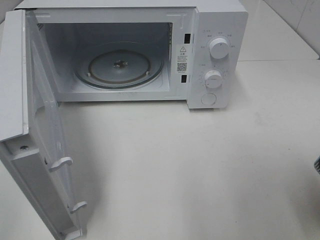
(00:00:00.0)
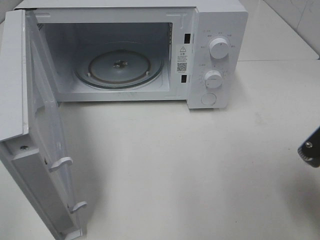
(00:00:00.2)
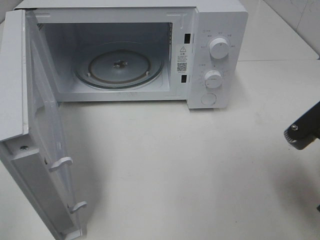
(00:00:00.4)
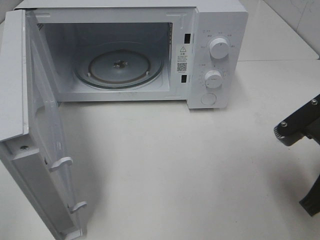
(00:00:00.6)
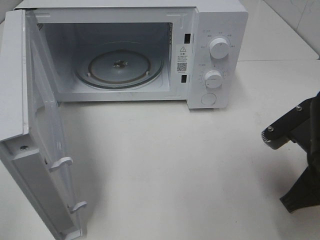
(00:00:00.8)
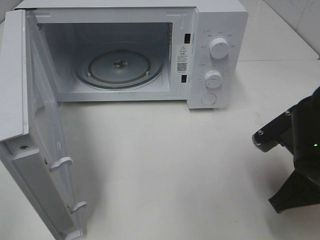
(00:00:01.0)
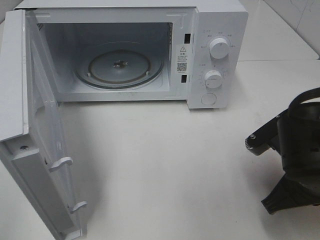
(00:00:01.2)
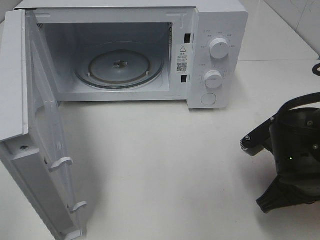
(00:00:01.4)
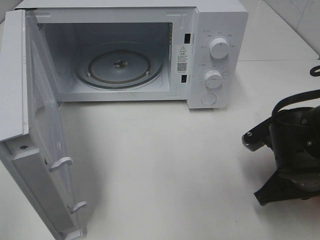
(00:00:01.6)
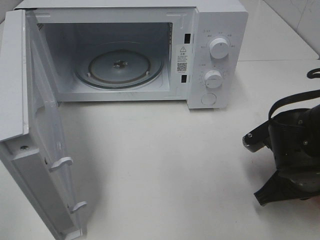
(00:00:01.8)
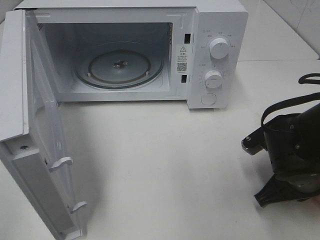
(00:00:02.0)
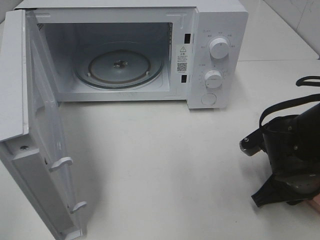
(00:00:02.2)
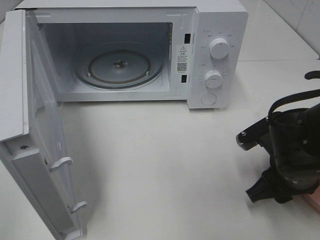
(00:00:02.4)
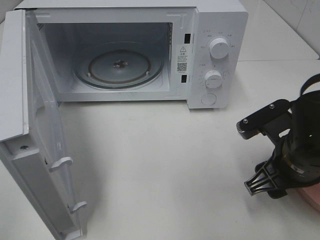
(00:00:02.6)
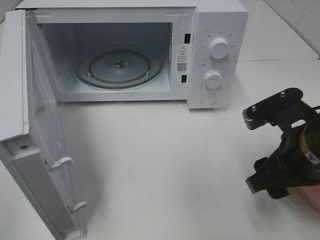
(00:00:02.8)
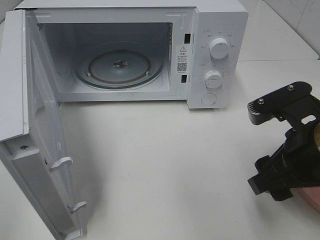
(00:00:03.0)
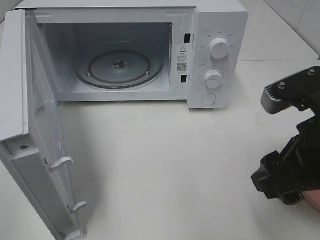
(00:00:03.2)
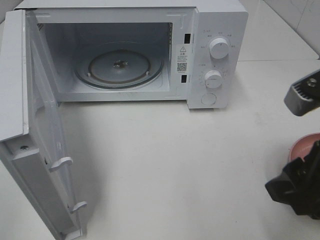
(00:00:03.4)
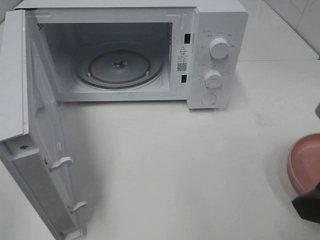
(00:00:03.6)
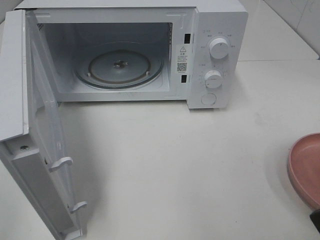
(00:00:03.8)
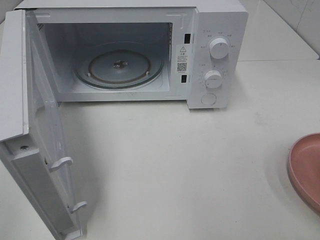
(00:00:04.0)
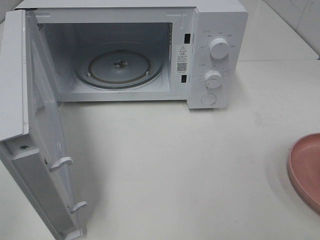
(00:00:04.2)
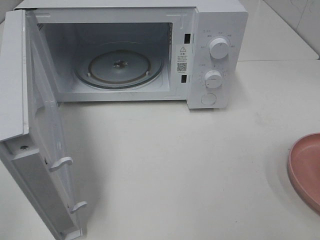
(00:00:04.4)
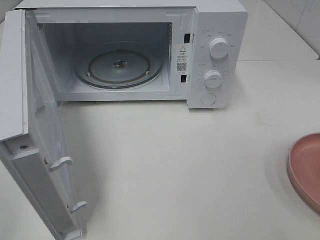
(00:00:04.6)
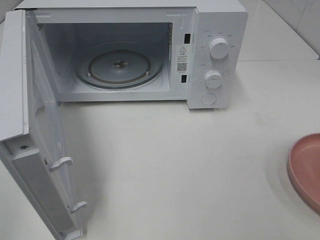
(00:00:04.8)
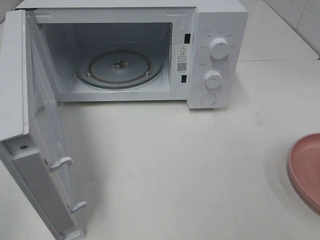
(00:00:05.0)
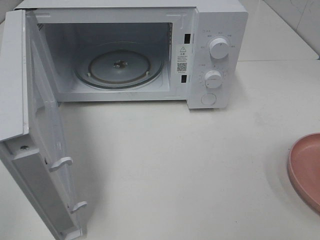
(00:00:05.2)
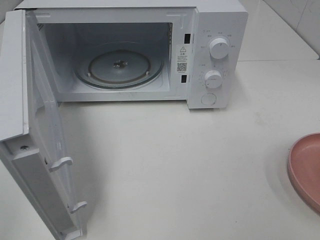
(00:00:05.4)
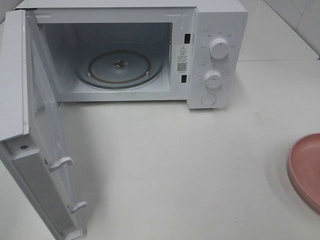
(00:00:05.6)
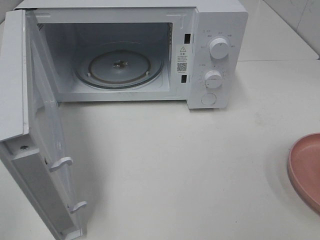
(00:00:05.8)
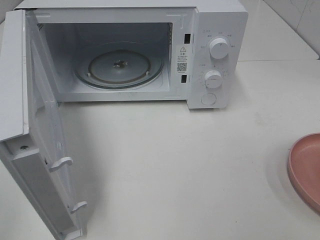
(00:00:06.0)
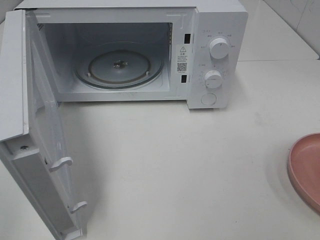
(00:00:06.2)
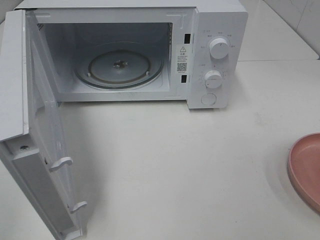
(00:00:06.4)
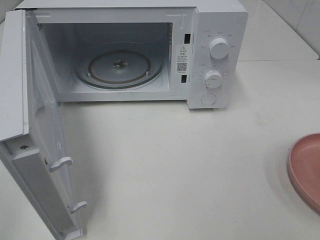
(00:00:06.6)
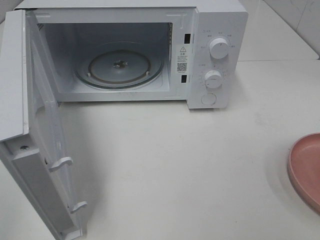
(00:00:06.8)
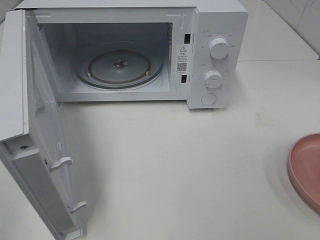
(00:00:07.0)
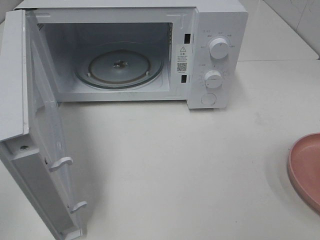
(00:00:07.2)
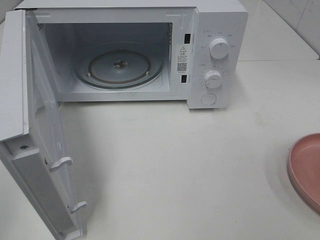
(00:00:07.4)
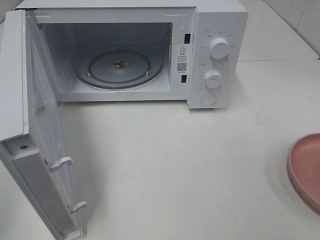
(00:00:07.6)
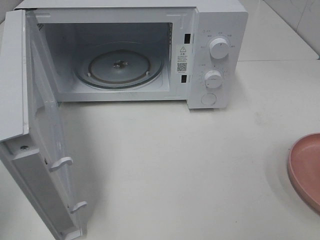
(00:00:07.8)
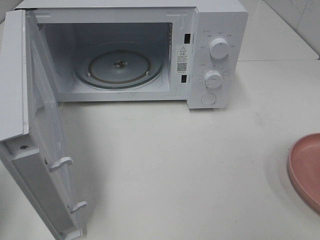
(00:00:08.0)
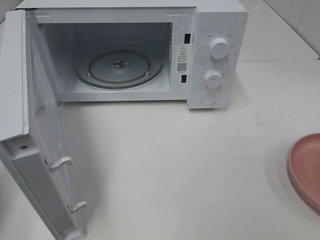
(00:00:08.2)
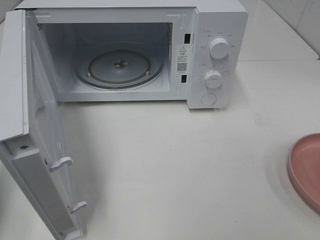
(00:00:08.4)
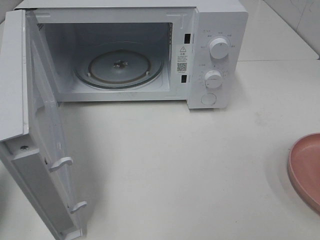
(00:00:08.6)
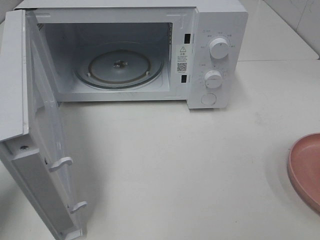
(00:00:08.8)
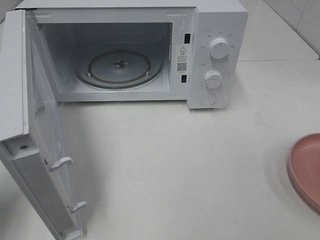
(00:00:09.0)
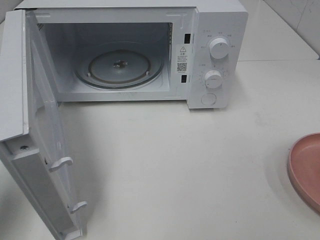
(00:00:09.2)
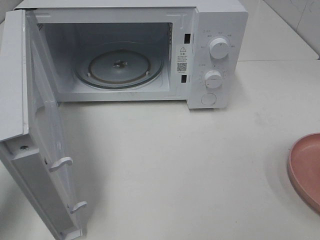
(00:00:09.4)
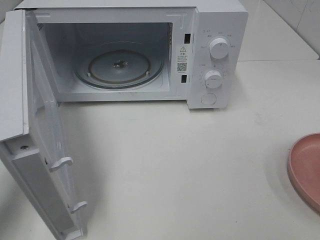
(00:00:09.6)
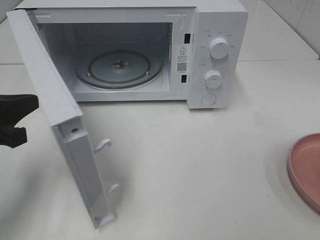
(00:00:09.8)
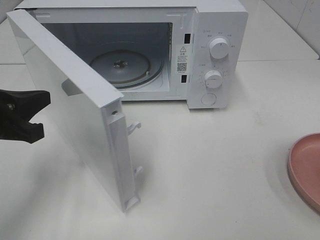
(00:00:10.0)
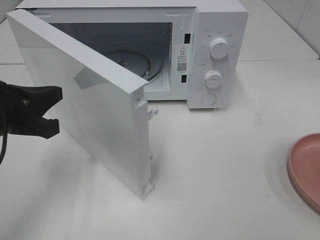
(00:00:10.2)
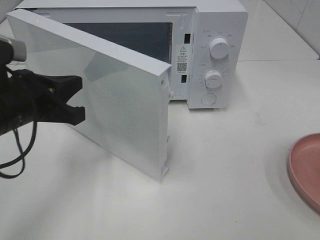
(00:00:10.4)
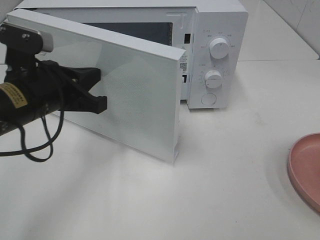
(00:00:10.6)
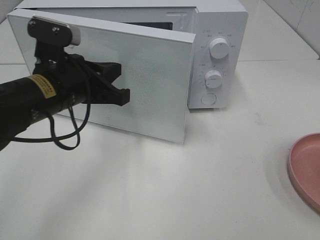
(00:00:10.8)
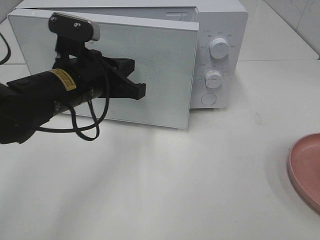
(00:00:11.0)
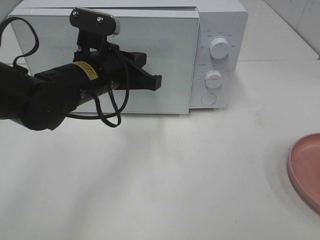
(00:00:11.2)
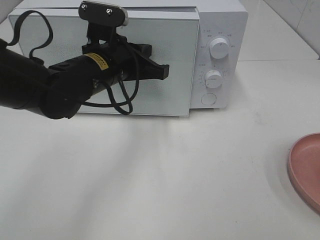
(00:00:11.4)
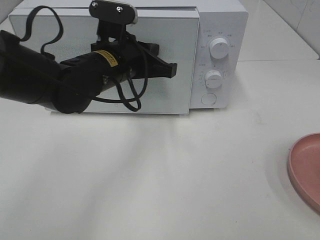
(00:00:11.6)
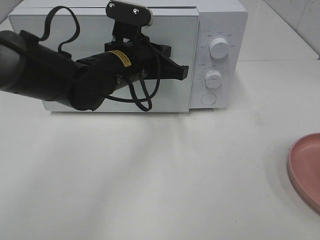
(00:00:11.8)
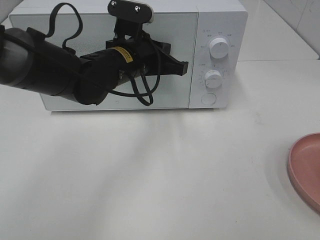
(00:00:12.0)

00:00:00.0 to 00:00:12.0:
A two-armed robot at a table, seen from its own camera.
Task of the whole recording: Heat the burger.
Step, 00:00:00.0 to 00:00:02.2: Right hand: place the plate on the table.
00:00:00.0 to 00:00:01.6: The right gripper travels downward and forward by approximately 10 cm.
00:00:01.6 to 00:00:03.0: The right gripper goes roughly 10 cm upward, and opens its fingers.
00:00:03.0 to 00:00:04.4: The right gripper heads backward, upward and to the right, covering roughly 15 cm.
00:00:07.6 to 00:00:09.0: The left gripper travels forward and downward by about 15 cm.
00:00:09.0 to 00:00:10.4: The left gripper travels to the right and forward by approximately 15 cm.
00:00:10.4 to 00:00:12.0: The left gripper shifts approximately 20 cm to the right and forward.

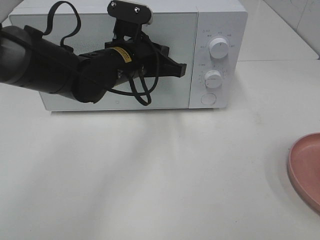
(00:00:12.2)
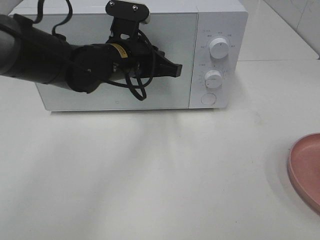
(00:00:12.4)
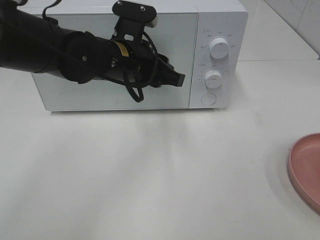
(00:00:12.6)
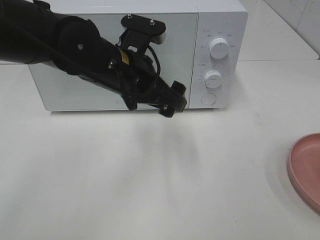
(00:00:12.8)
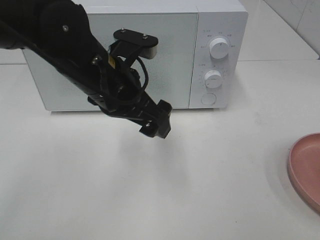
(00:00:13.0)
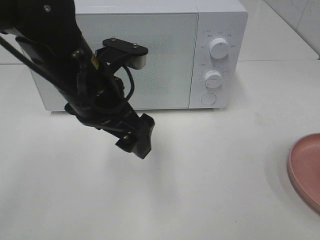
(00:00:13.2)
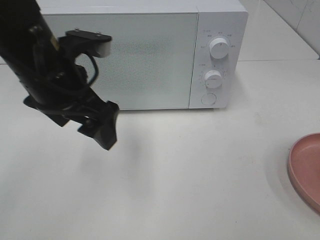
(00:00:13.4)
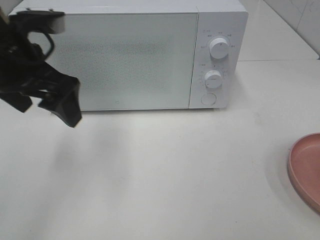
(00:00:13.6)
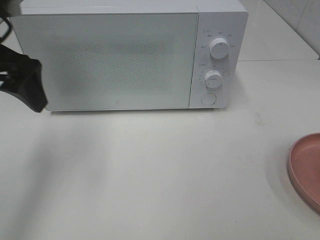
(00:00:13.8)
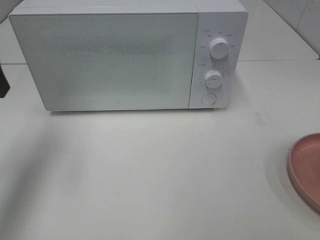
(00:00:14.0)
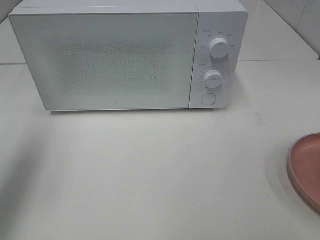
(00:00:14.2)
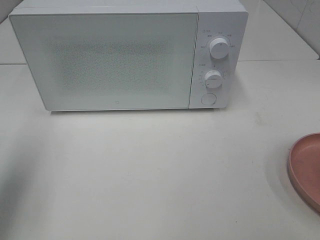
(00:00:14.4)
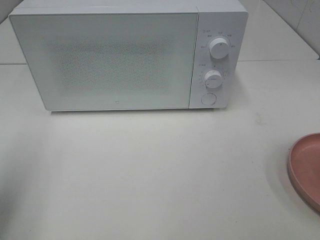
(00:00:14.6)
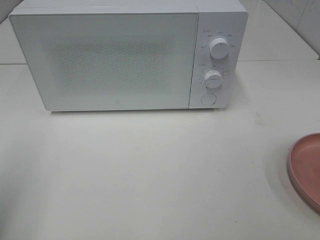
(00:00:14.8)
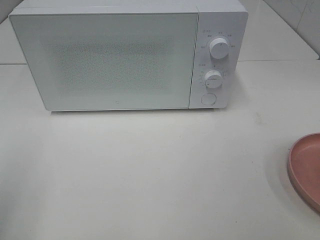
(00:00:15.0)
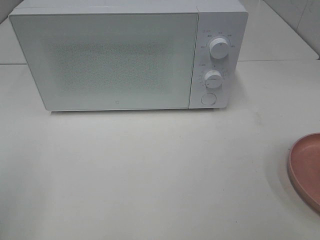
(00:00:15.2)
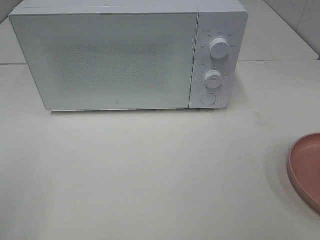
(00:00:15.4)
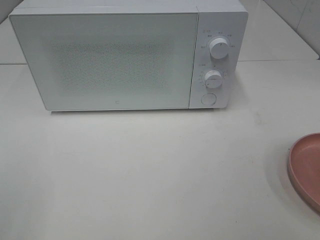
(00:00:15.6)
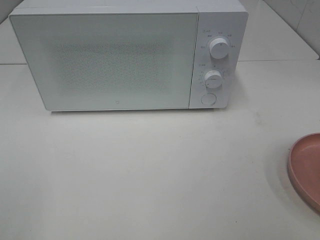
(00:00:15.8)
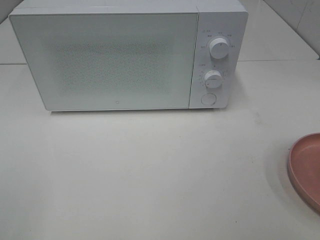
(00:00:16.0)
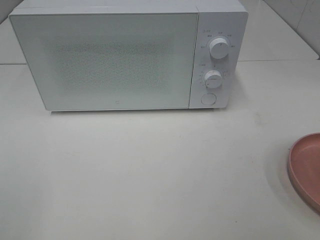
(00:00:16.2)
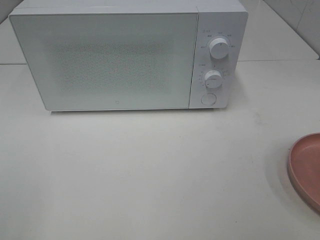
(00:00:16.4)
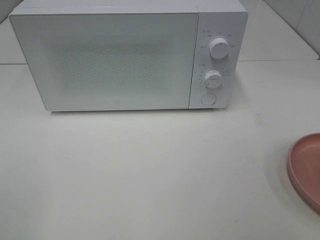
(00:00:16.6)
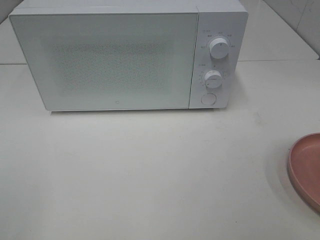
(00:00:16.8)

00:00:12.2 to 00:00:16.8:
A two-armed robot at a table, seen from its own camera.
Task of the whole recording: Heat the burger.
00:00:12.2 to 00:00:13.8: The left gripper shifts approximately 25 cm to the left, upward and backward, and opens up.
00:00:13.8 to 00:00:15.2: The left gripper moves backward, about 20 cm.
